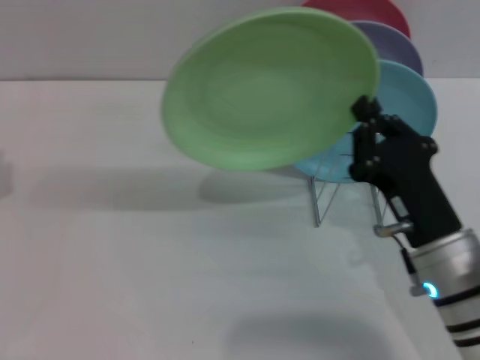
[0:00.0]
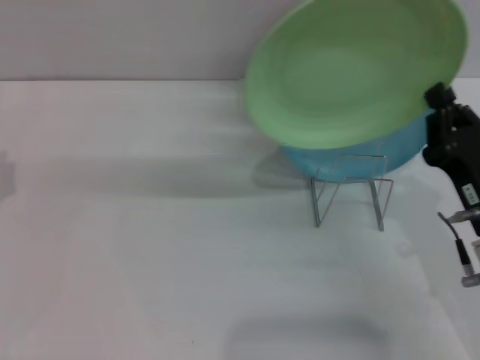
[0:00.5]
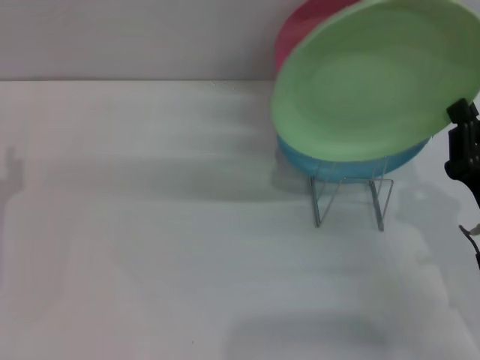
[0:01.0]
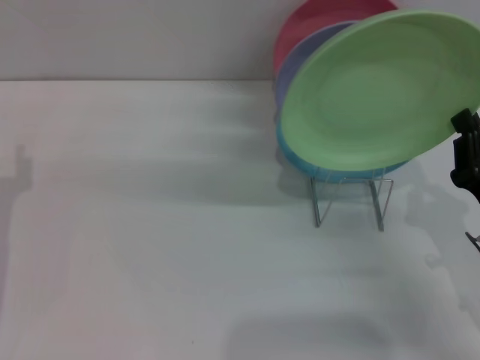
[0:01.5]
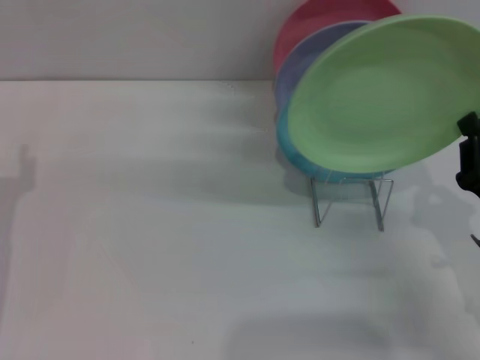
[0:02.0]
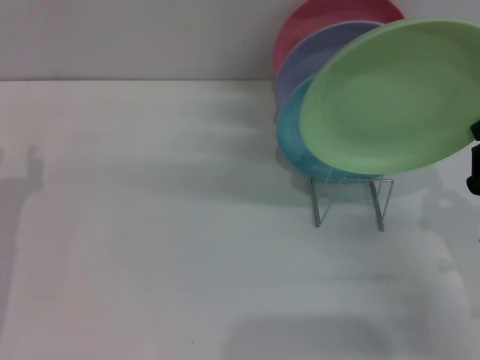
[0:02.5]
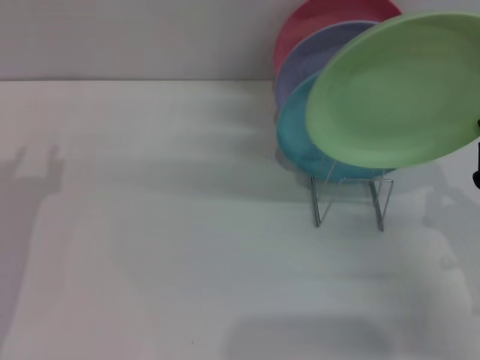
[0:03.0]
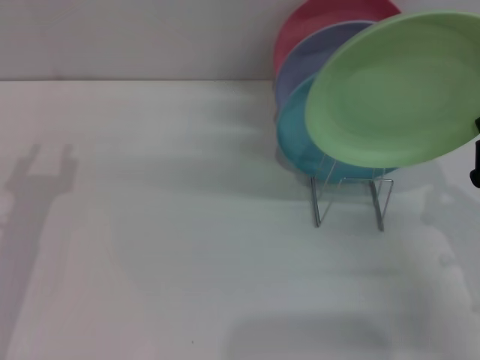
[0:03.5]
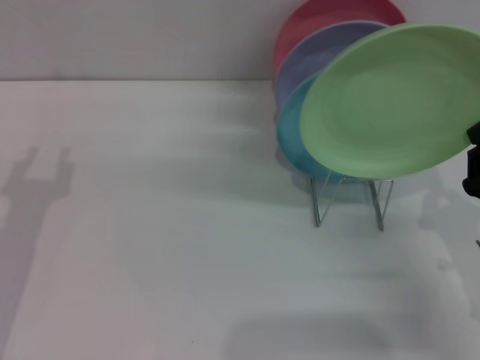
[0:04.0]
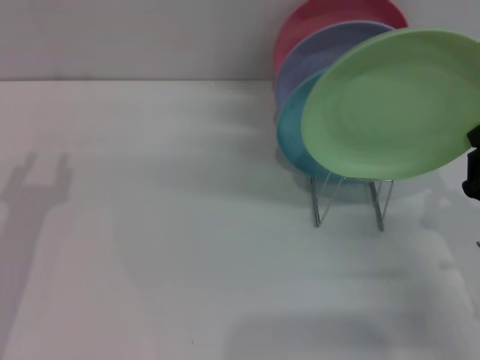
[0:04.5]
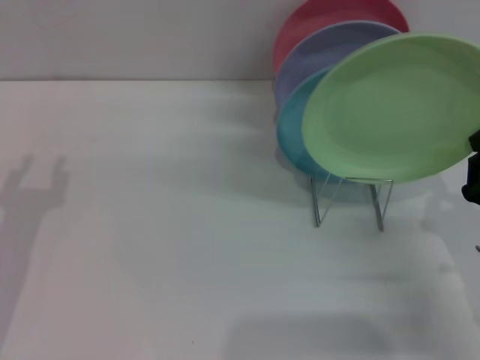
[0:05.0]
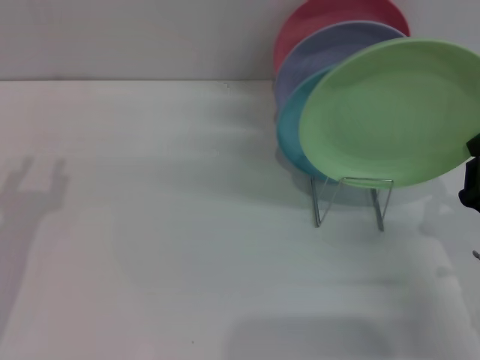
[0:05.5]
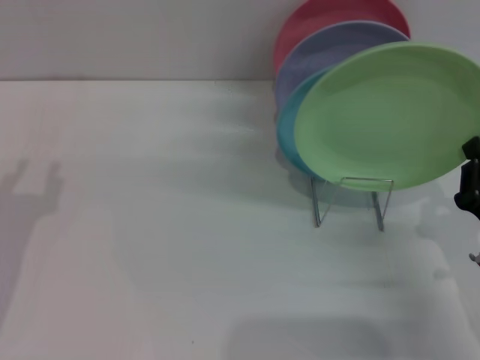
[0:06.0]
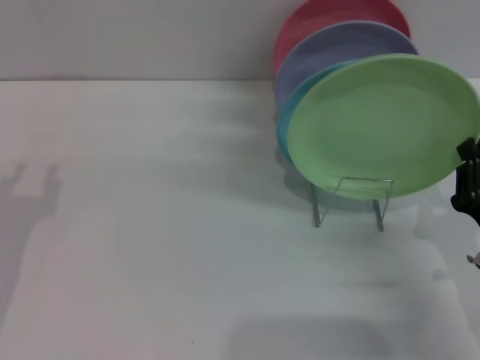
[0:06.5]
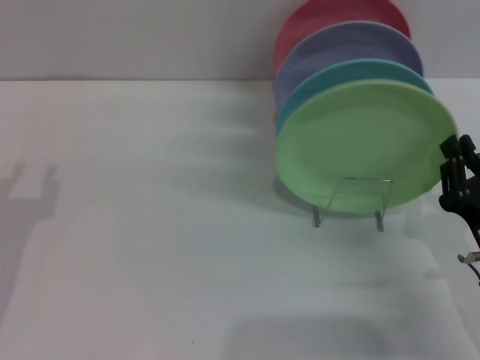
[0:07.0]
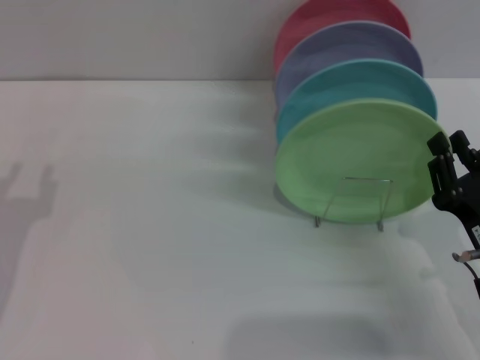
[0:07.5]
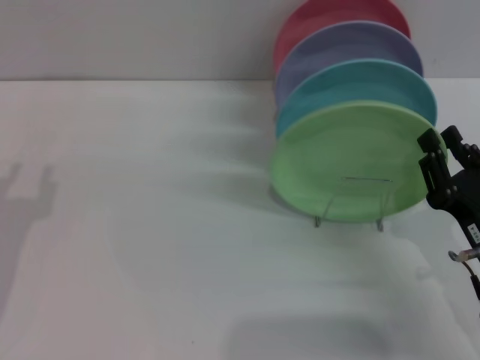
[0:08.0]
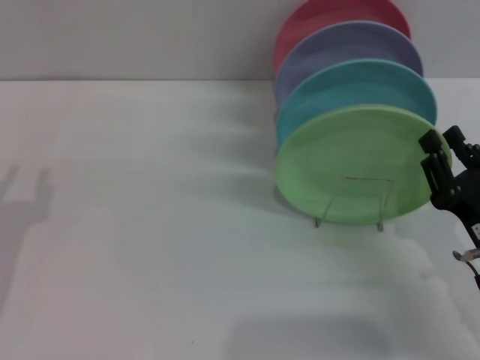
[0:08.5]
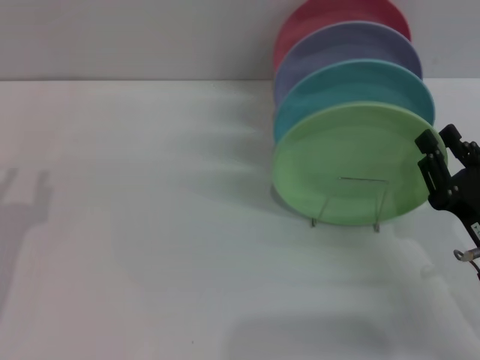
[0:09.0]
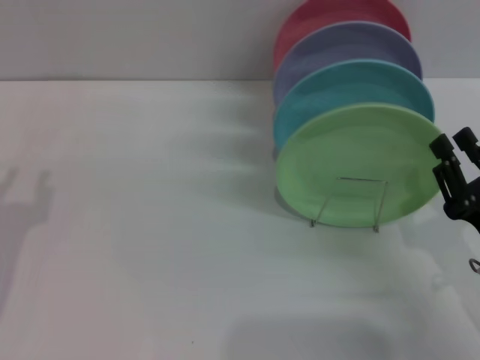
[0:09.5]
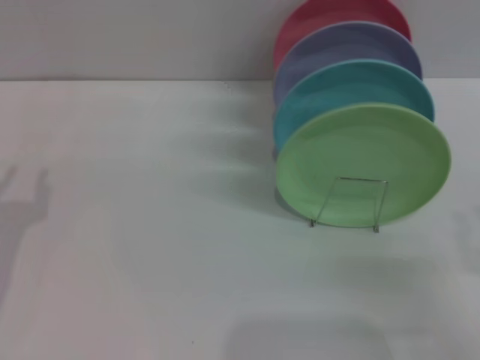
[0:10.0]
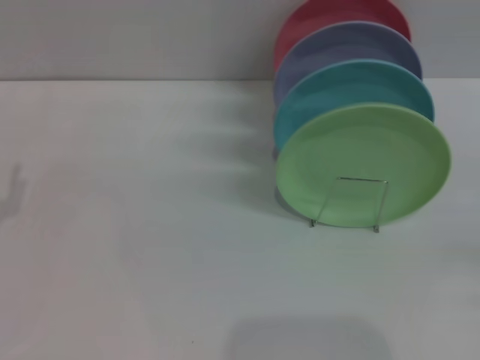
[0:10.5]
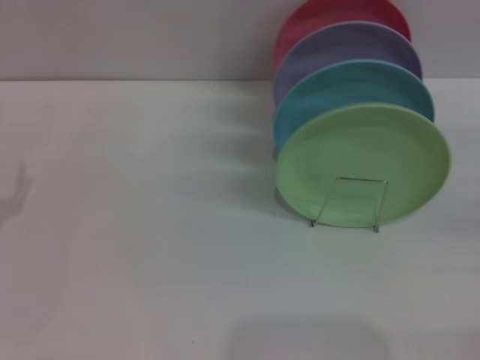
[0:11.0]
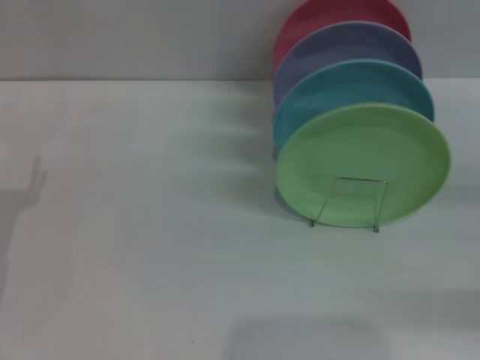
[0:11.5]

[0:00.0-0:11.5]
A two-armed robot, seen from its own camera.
Task of the whole recording: Grip the plate with one hand, pass it to the other, then set it on the shelf.
Step, 0.0 to 9.5 s: Place the plate on the shelf with the right gripper.
0.0 to 2.0 s: The right gripper heads to the right, covering approximately 10 cm.
2.0 to 6.0 s: The grippers make only small movements.
6.0 to 7.5 s: The right gripper opens.
7.5 to 9.5 s: The grippers move only a little.
9.5 to 11.5 s: The right gripper heads to the right and upward, covering roughly 15 cm.

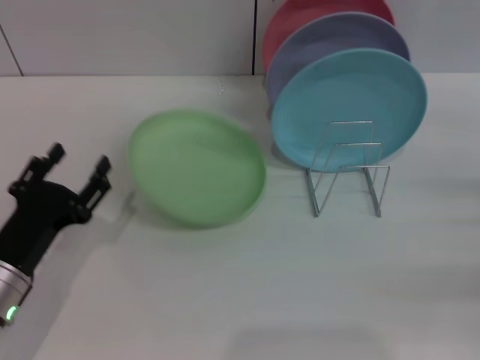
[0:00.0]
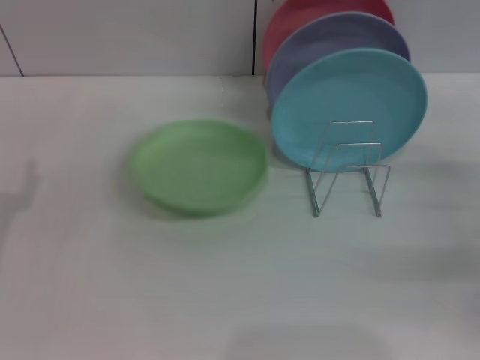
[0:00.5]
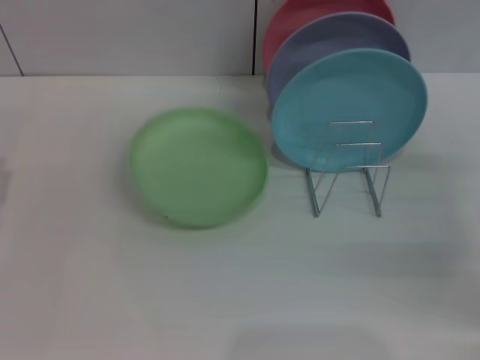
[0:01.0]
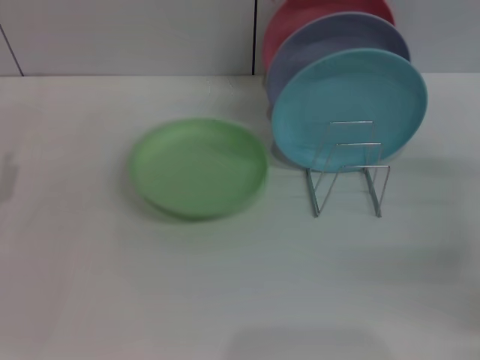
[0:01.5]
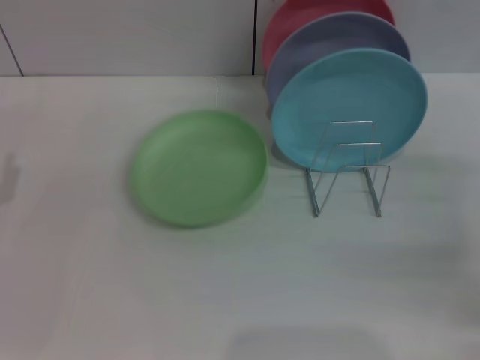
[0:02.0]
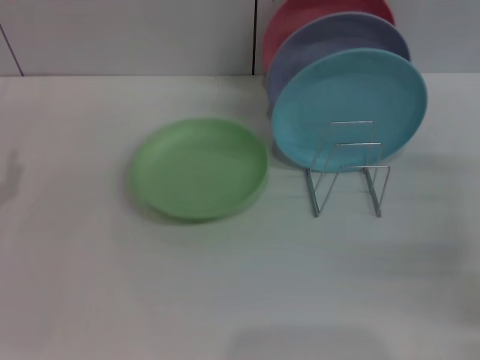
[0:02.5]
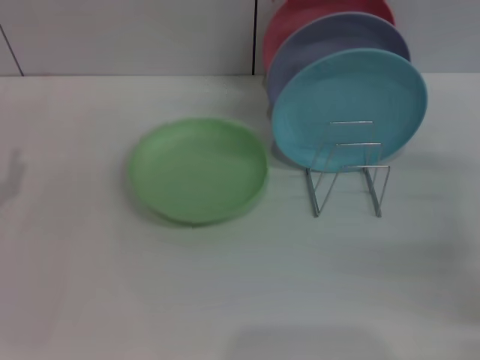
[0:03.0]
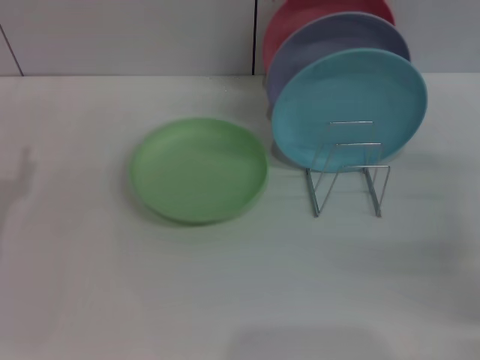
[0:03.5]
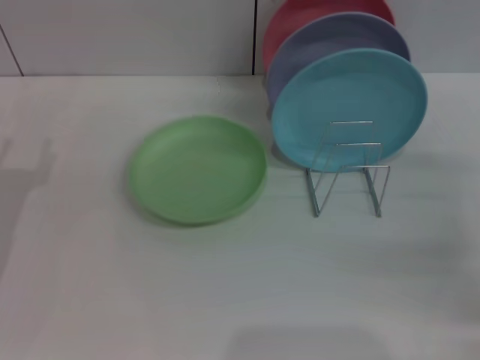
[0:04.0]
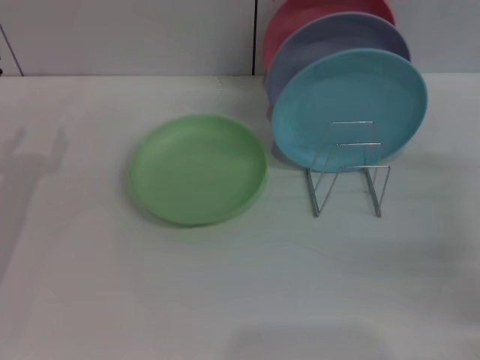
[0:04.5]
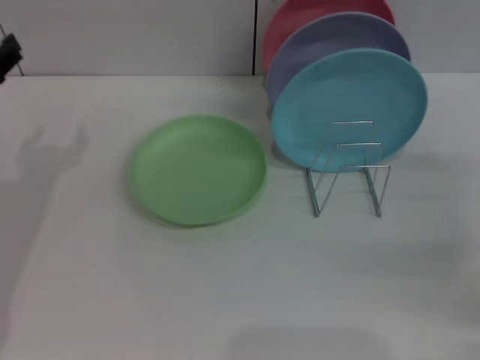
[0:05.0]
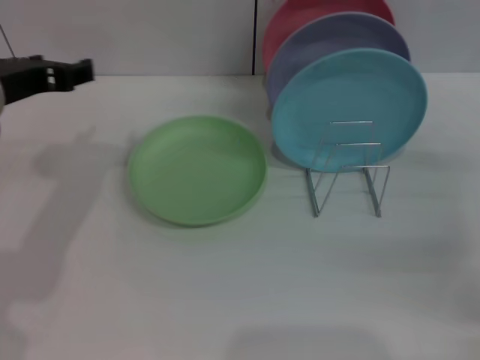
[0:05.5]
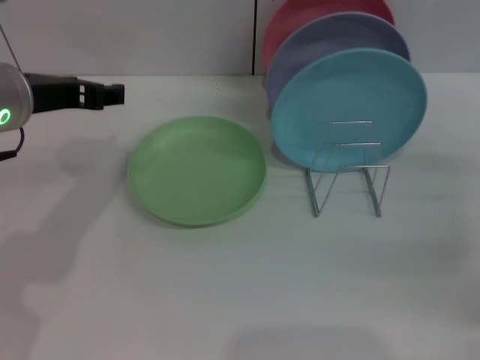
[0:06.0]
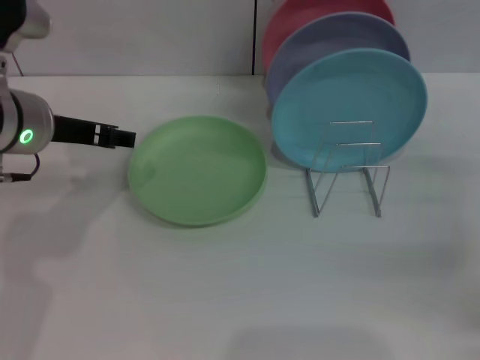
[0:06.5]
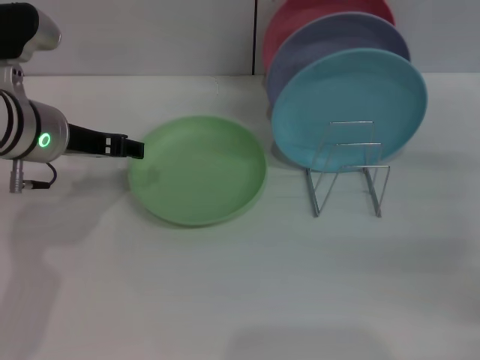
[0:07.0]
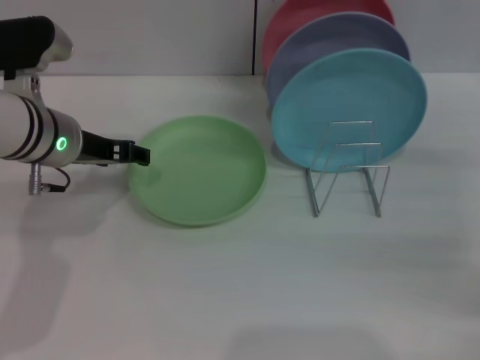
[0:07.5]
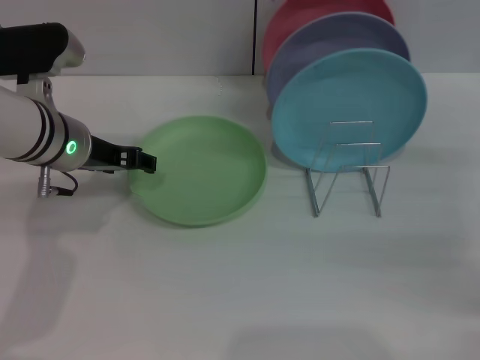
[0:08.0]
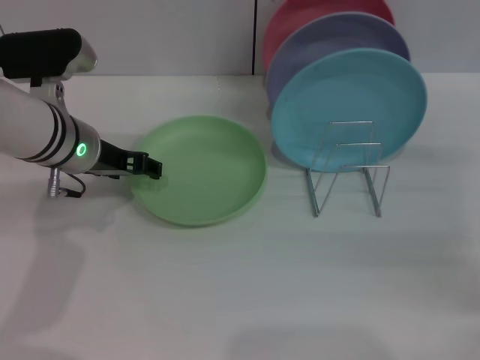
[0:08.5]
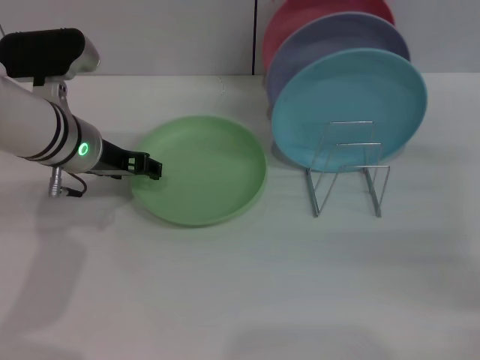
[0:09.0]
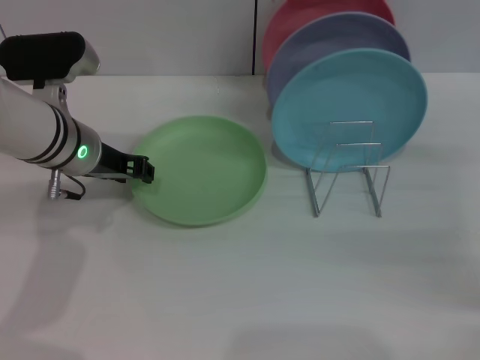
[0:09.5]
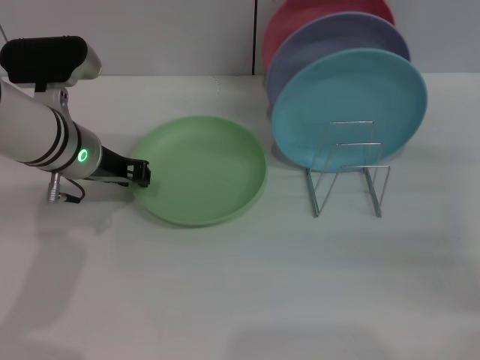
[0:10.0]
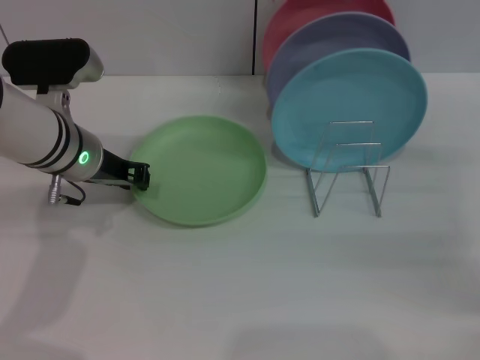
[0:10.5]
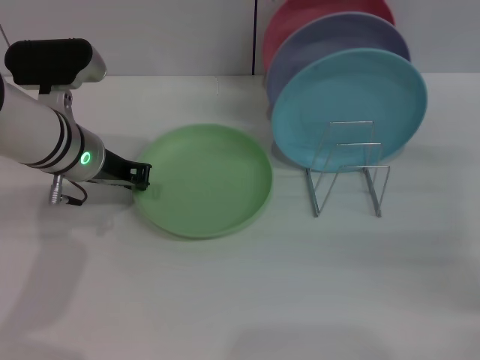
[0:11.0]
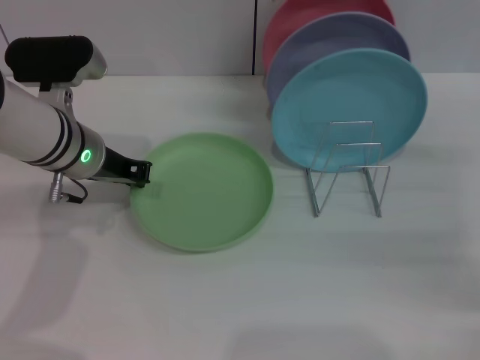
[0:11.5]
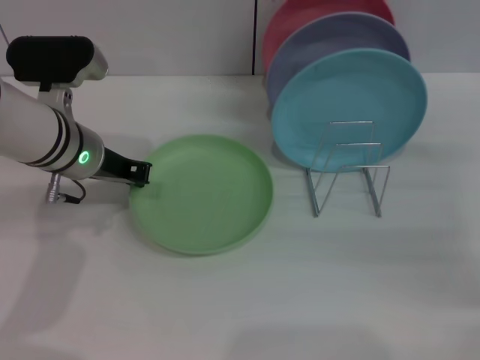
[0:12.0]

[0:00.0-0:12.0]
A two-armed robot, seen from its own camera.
Task of the whole recording: Grip the plate with one hand, pass it to the other, then set it on the shelf.
0.0 to 2.0 s: The right gripper moves approximately 5 cm, while the left gripper is displaced to the left by approximately 10 cm.
4.0 to 6.0 s: The left gripper moves upward, to the right and forward, some 15 cm.
6.0 to 8.0 s: The left gripper is displaced downward by roughly 10 cm.
8.0 to 10.0 s: The left gripper closes its fingers.
10.0 to 12.0 s: The left gripper closes up.

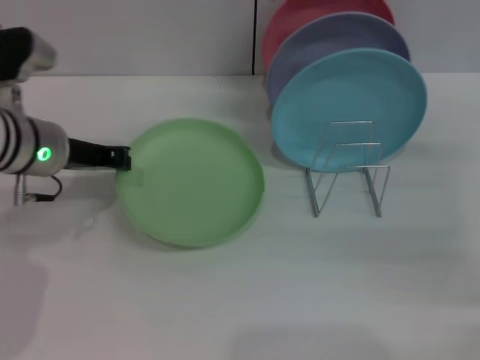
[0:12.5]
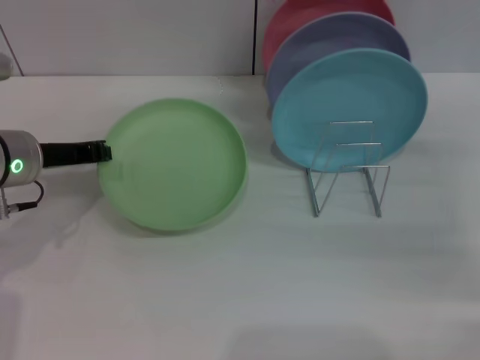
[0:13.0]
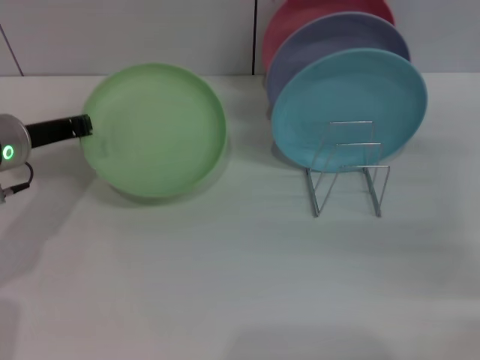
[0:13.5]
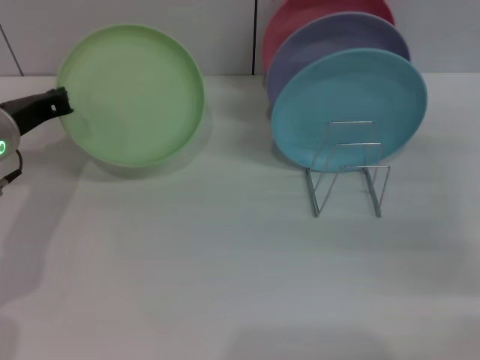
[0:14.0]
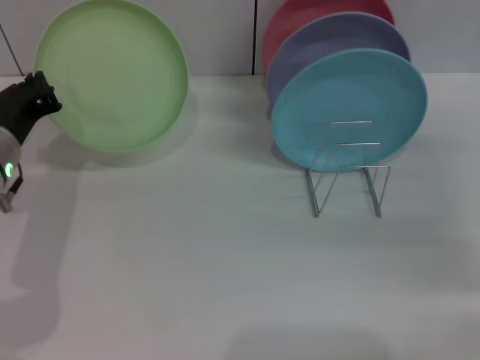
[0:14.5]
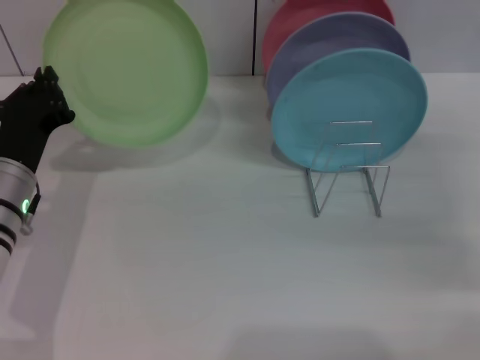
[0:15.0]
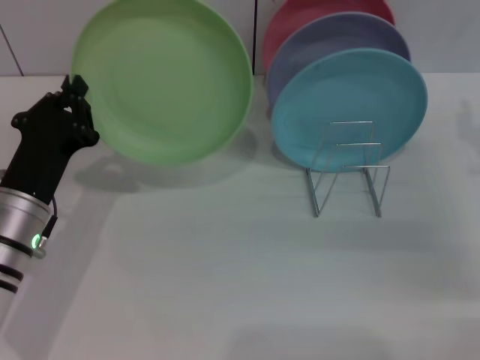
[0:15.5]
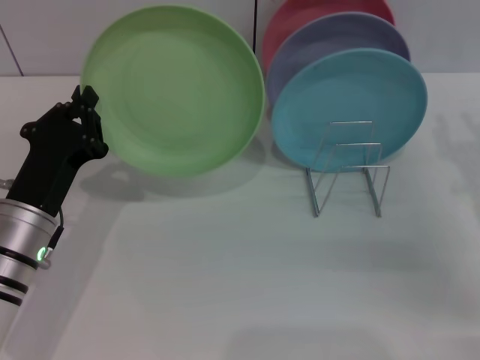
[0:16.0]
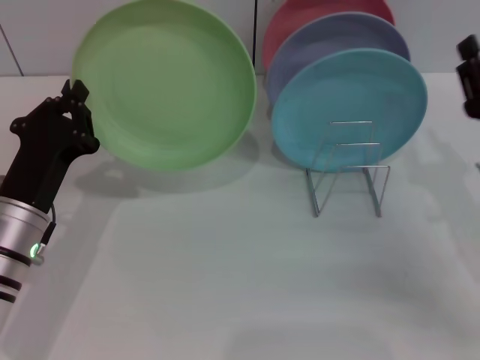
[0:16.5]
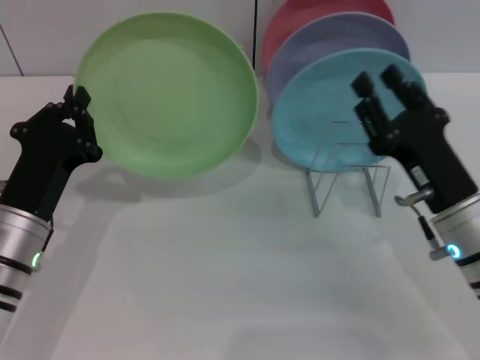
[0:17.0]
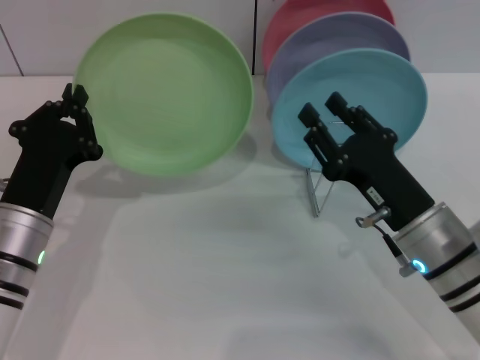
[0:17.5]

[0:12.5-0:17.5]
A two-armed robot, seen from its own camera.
Task of the whole recording: Grip the plate with one hand, pass it to the other, then set it on the shelf.
12.5 to 15.0 s: The left gripper travels downward and backward by some 10 cm.
15.0 to 17.5 s: The left gripper changes place by approximately 5 cm. Meanwhile the right gripper moves to the left and backward, roughly 15 cm.
